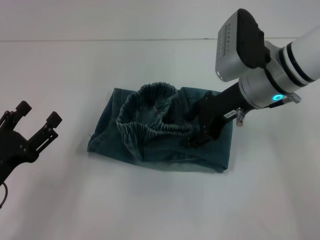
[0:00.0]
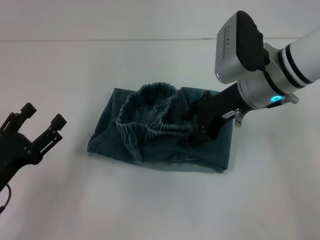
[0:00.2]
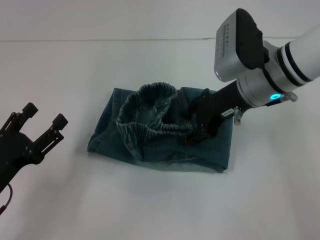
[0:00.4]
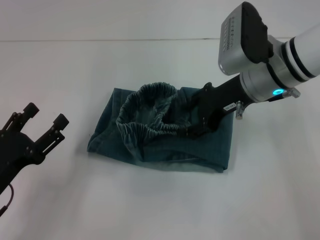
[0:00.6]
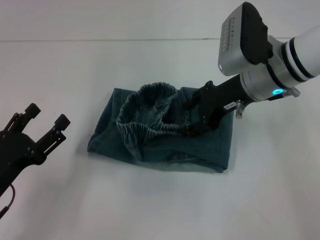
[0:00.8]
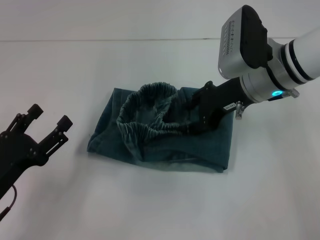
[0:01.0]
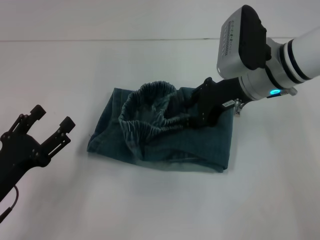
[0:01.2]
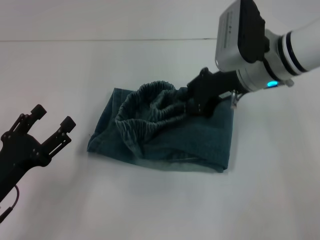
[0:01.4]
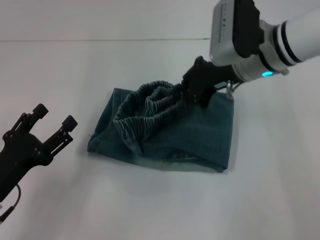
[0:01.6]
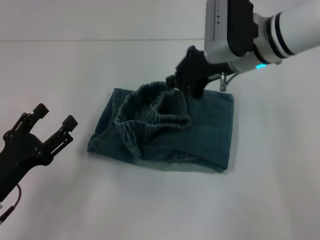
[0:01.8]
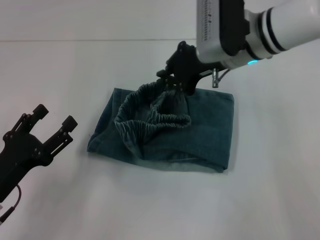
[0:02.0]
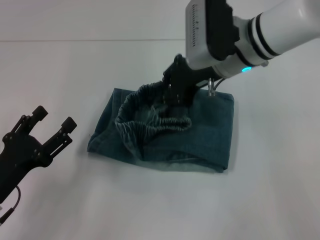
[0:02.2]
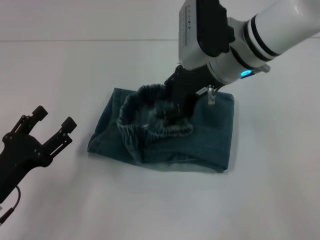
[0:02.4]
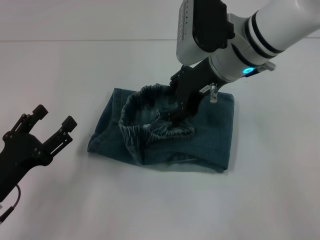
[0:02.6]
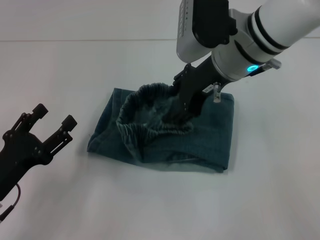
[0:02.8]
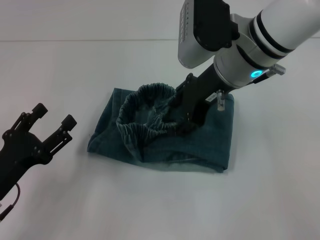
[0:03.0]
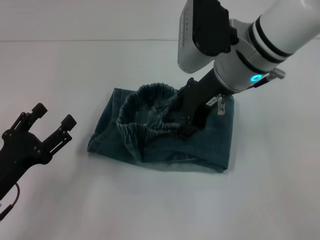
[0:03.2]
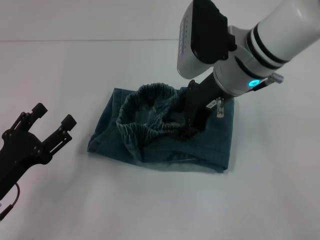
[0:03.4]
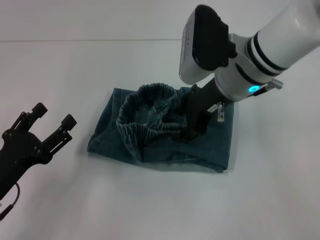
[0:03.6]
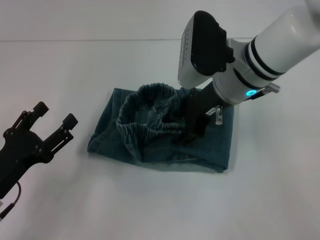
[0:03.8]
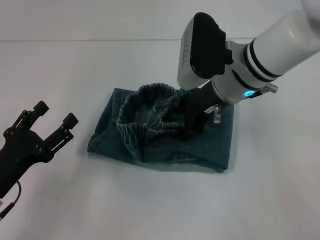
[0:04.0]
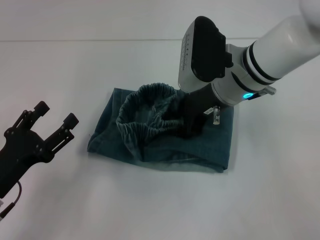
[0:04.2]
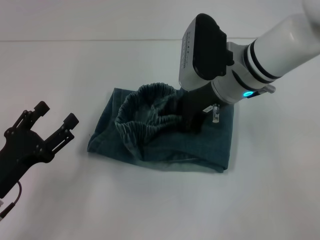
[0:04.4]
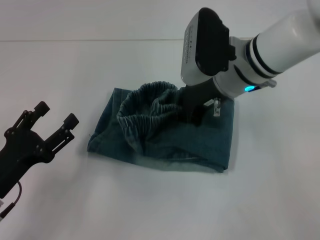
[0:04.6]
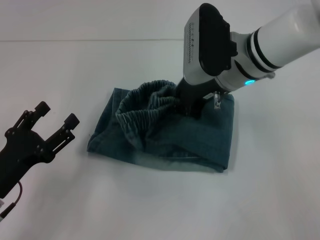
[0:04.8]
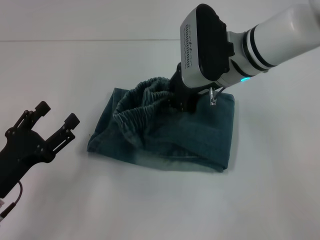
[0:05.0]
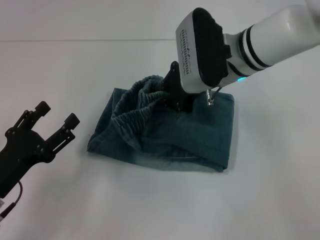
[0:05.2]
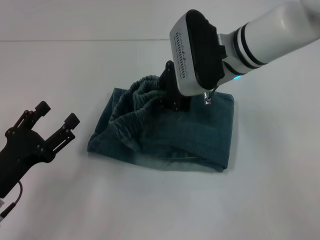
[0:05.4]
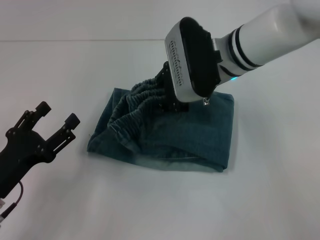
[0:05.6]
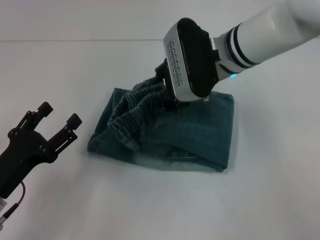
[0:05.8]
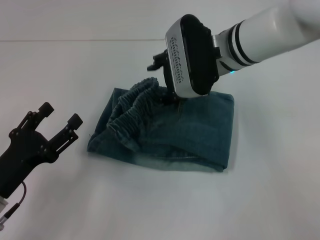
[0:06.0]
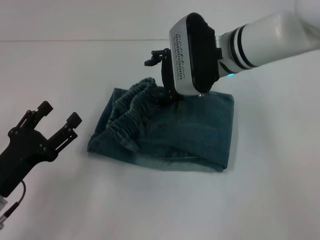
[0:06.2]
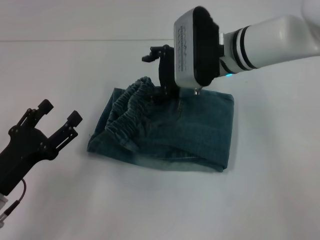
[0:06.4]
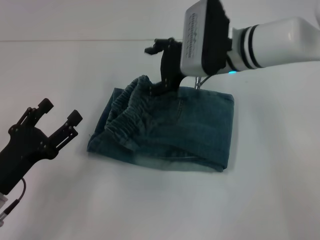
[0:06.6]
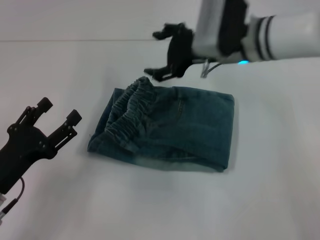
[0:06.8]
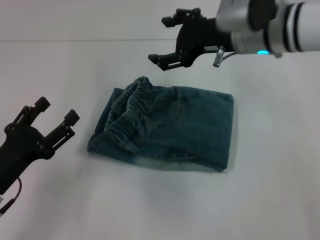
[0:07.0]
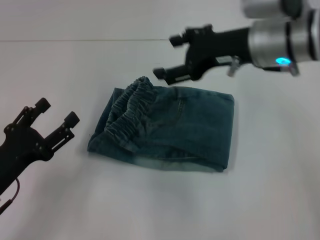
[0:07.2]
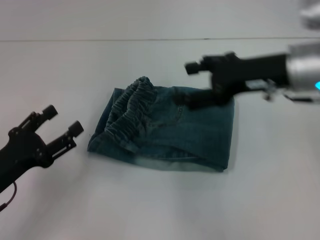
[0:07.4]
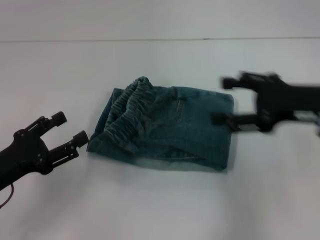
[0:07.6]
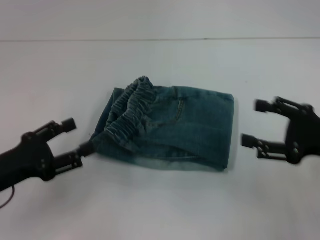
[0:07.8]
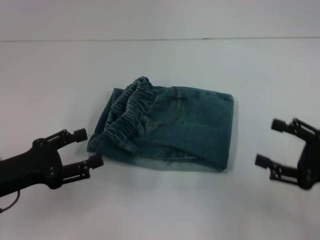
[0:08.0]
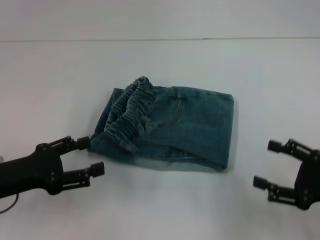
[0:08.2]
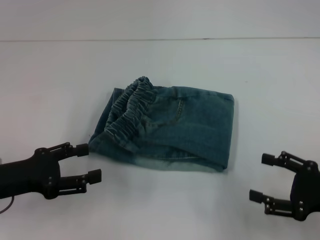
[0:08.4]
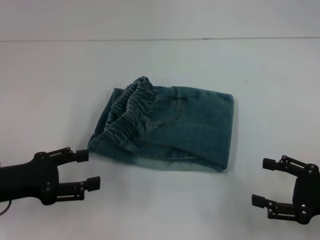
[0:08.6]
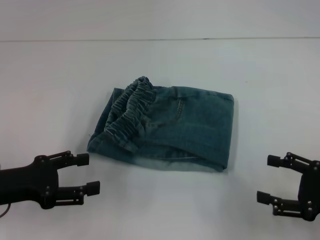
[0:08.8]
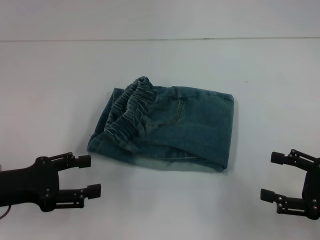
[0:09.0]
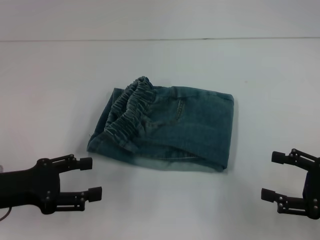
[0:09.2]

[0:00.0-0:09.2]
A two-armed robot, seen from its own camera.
Step, 0.0 to 6.6 s: Fold to the left with your right hand.
0.0 to 1.6 s: The right gripper closes.
1.6 to 3.0 s: The right gripper ends up about 5 cm from where it was, and opens its fingers.
3.0 to 4.6 s: The right gripper closes its fingers.
4.6 to 6.2 s: The right gripper opens up.
6.2 to 7.6 s: The right gripper travels to the right and backward by roughly 20 cm.
7.6 to 9.2 s: The right gripper goes roughly 15 cm downward, backward and to the right.

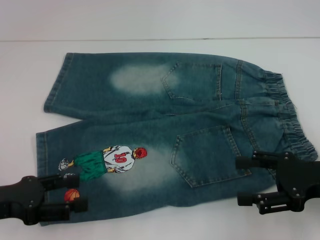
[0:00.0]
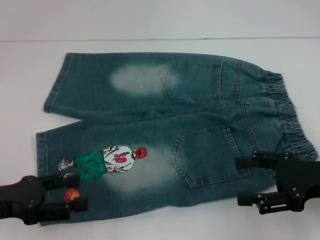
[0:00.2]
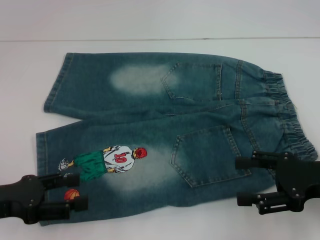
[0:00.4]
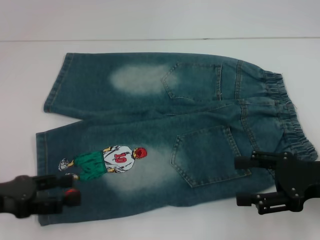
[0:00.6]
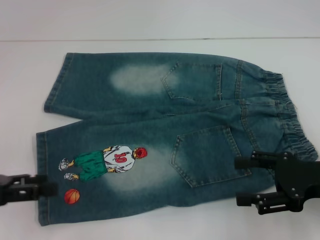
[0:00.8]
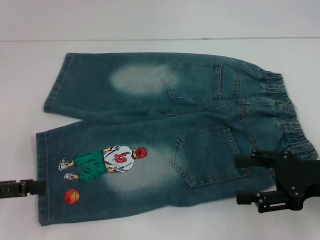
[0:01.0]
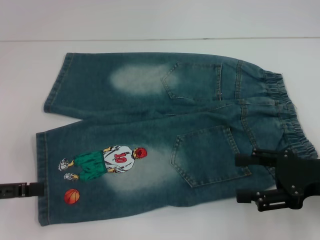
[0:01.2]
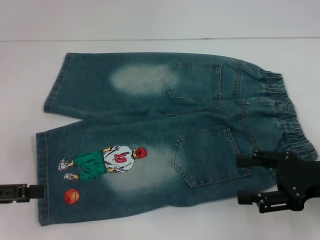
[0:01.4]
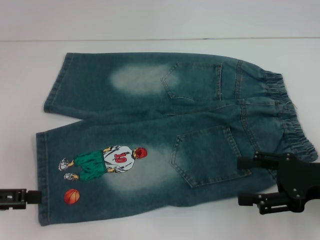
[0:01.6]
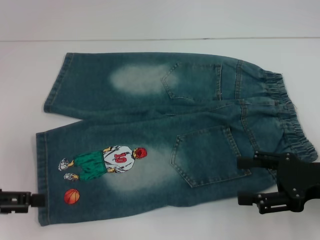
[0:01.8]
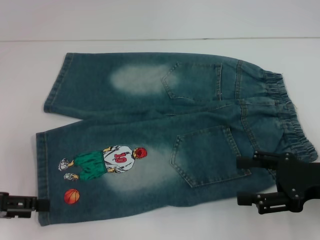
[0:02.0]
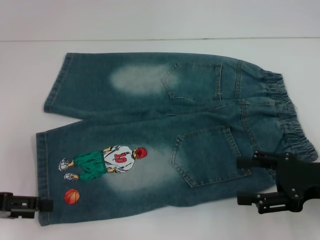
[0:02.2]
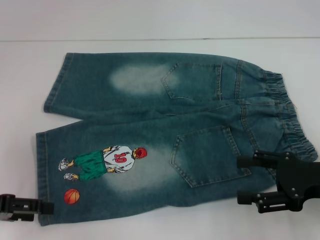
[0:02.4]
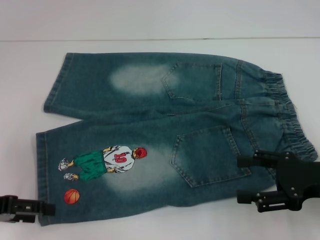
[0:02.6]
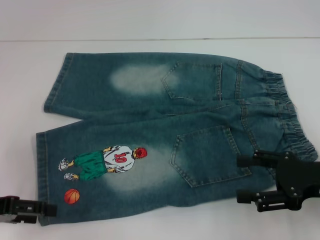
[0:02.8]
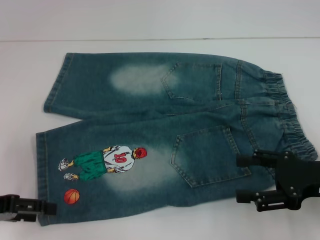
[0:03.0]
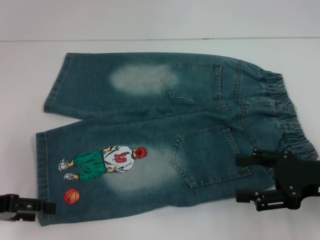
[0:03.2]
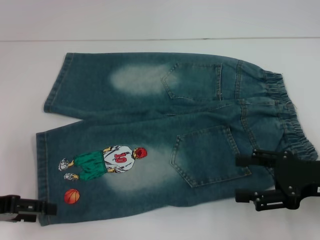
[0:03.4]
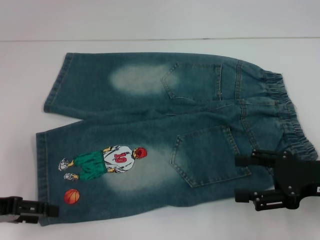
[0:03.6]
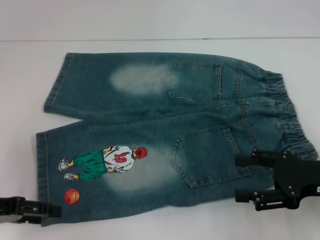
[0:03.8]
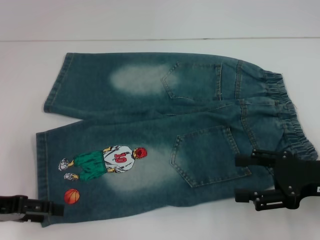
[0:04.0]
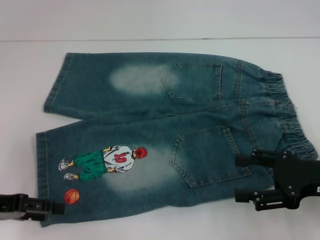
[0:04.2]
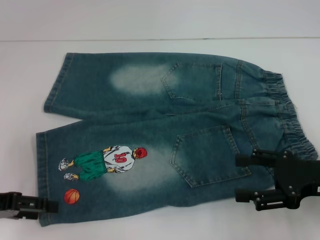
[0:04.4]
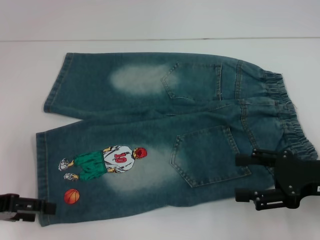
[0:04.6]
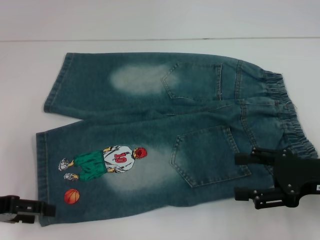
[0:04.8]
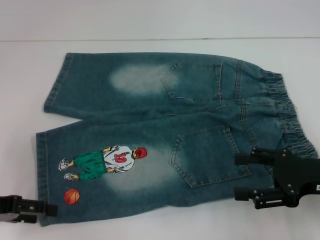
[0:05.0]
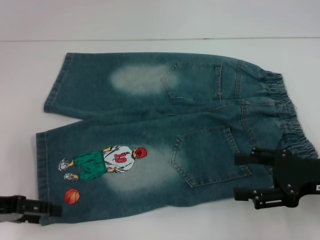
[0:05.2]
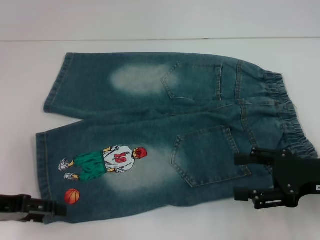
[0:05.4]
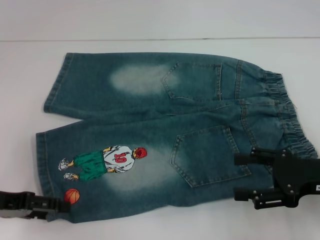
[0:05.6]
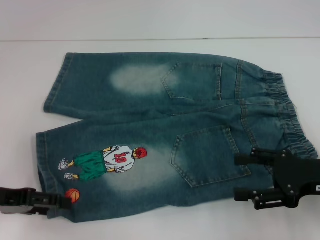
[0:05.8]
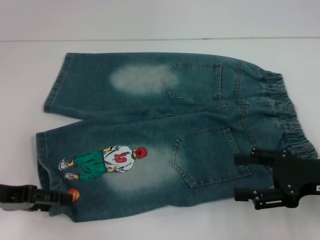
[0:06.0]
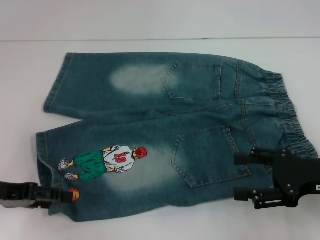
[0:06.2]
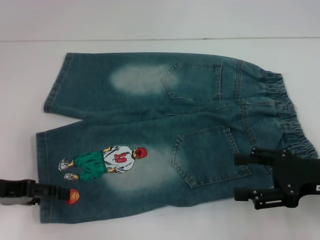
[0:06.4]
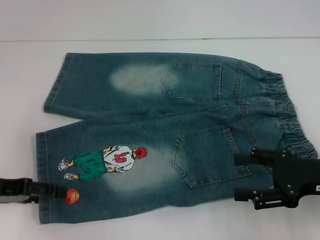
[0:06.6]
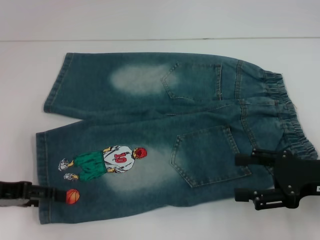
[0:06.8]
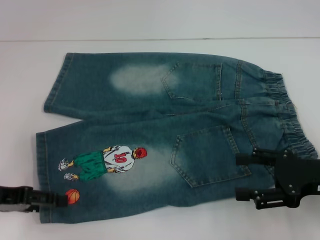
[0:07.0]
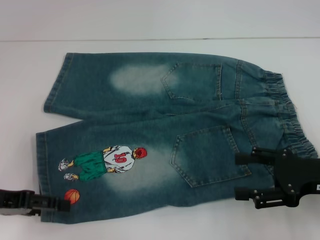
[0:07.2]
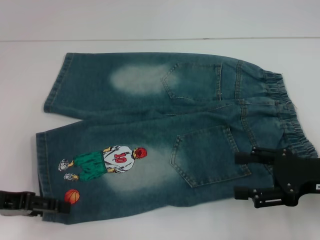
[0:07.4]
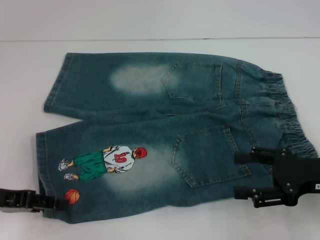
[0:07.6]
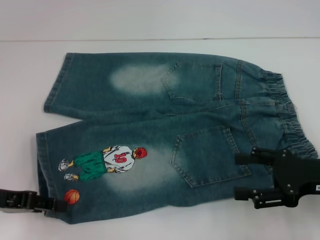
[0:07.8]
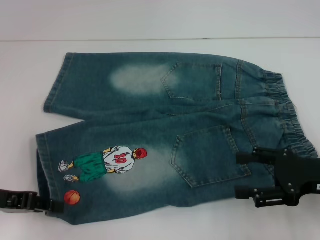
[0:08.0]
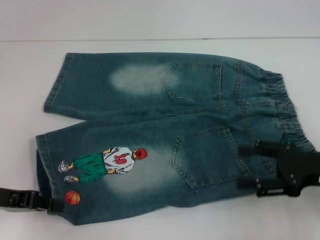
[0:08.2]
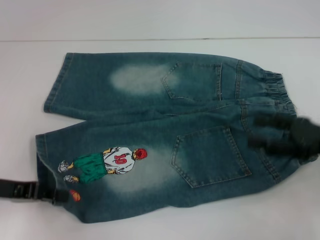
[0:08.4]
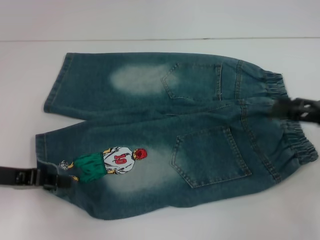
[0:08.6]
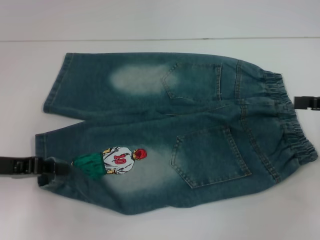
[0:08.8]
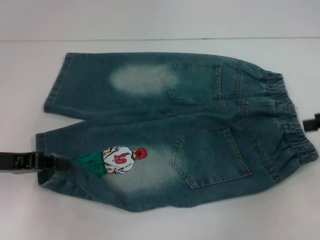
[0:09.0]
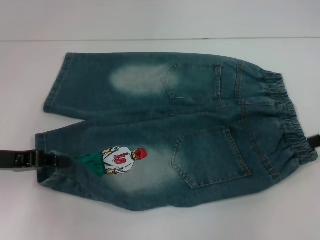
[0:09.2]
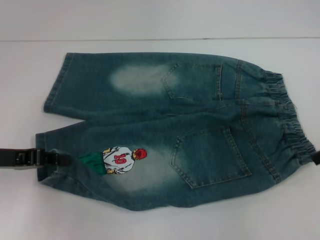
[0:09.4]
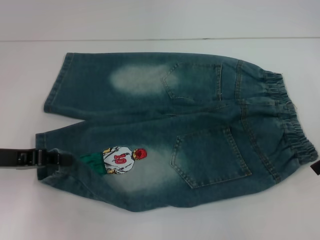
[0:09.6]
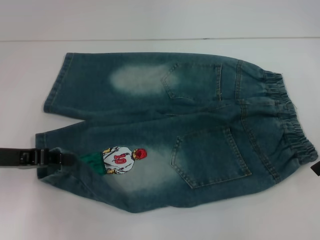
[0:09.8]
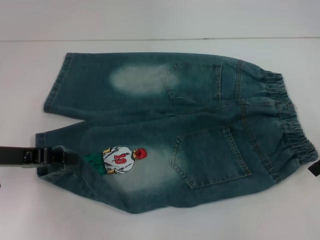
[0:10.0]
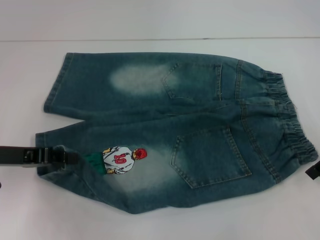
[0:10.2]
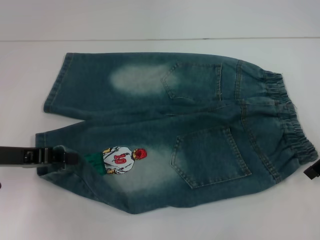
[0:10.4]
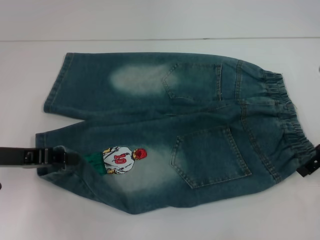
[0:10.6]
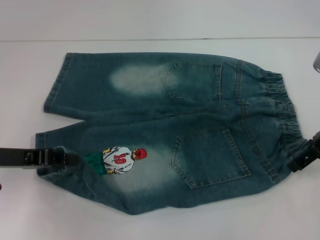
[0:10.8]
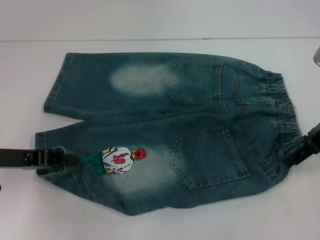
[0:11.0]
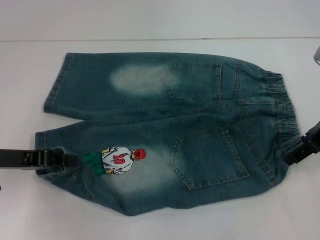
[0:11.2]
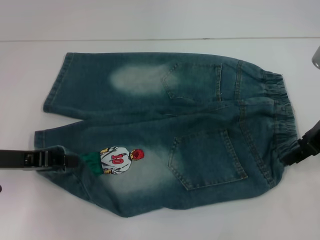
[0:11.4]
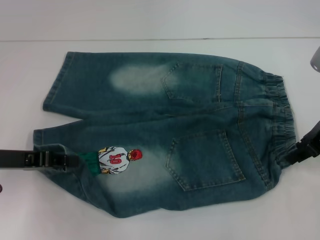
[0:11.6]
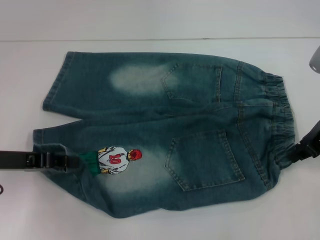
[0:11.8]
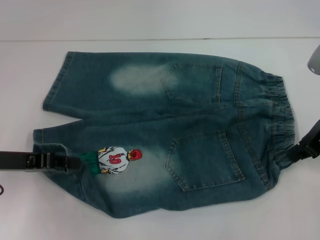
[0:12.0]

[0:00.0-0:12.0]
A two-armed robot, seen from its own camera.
Step, 0.0 to 8.2 s: Grab the lower left pant leg with your left hand.
Step, 8.4 to 12.0 s: Hold the lower right waistband with your right hand.
0.0 to 1.6 s: The left gripper shifts by about 5 cm.
1.6 to 3.0 s: The grippers move only a little.
3.0 to 4.4 s: The two grippers keep their place.
4.4 to 6.0 s: The grippers make only small movements.
6.0 to 7.6 s: Both grippers stay put.
7.6 to 9.0 s: The right gripper goes some 15 cm to the right, upward and forward. Meanwhile the left gripper closes up.
9.0 to 10.4 s: The right gripper goes some 5 cm to the left.
10.4 to 12.0 s: The right gripper closes its fingers.

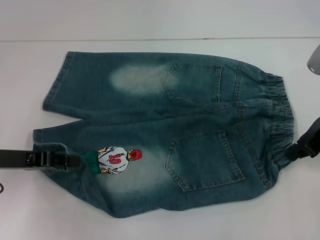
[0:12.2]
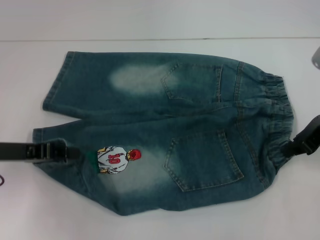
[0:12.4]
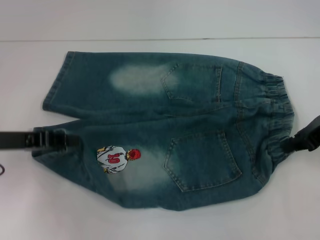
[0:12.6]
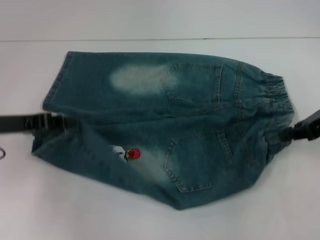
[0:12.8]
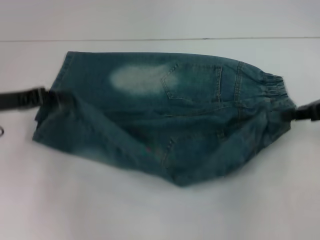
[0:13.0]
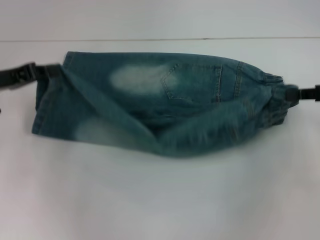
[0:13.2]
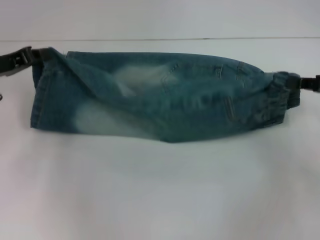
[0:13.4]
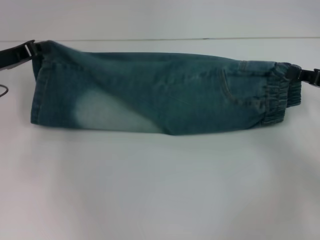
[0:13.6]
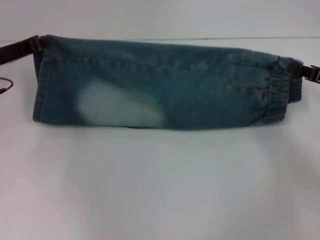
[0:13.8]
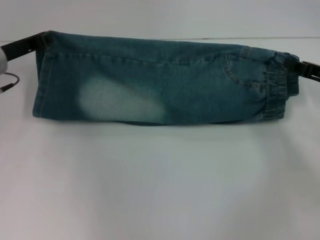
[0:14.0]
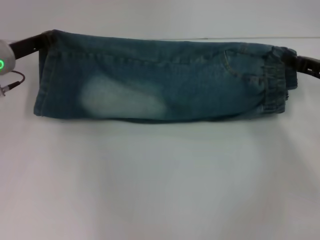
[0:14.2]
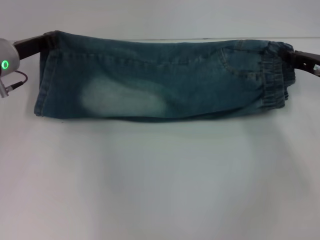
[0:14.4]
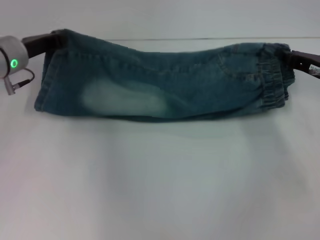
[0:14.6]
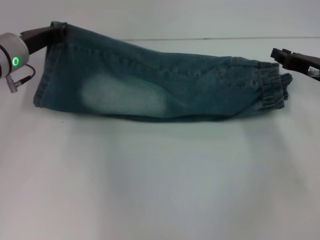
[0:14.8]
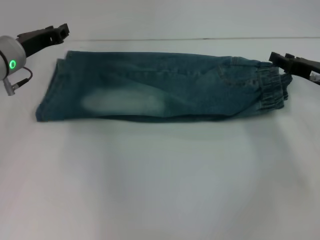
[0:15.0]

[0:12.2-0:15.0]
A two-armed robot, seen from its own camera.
12.2 to 13.6 s: The left gripper travels forward by approximately 10 cm; the right gripper moves to the right, about 5 cm.
13.6 to 15.0 s: The left gripper is displaced to the right by roughly 5 cm. Meanwhile the right gripper ends up roughly 5 cm from where it was.
